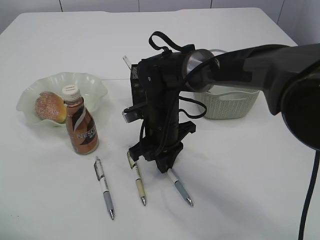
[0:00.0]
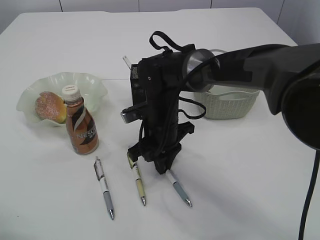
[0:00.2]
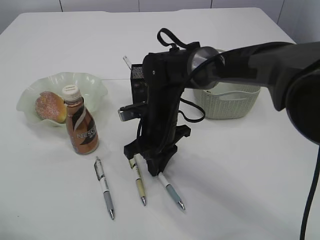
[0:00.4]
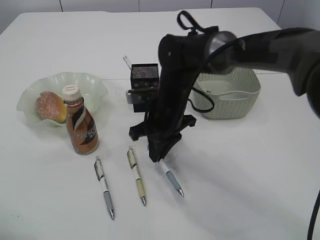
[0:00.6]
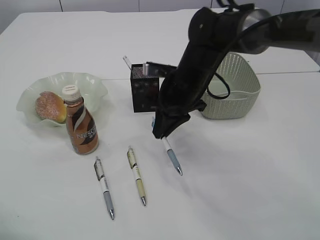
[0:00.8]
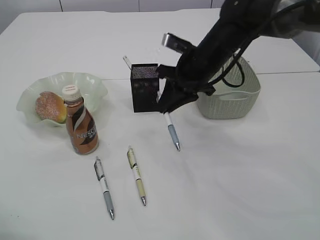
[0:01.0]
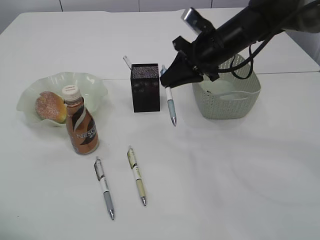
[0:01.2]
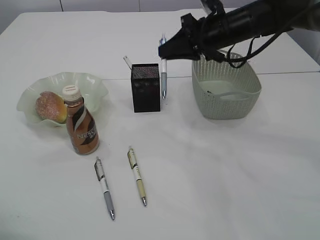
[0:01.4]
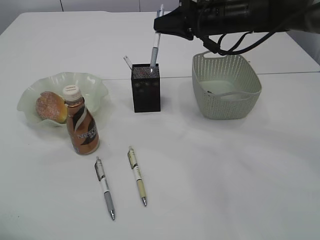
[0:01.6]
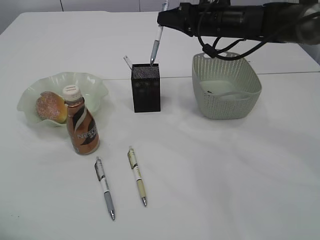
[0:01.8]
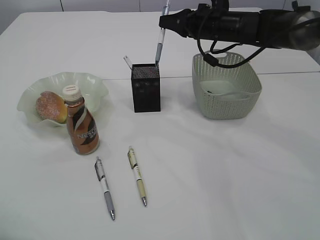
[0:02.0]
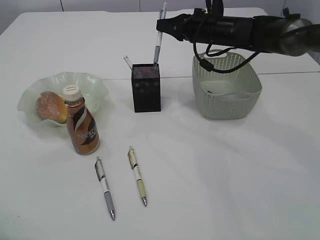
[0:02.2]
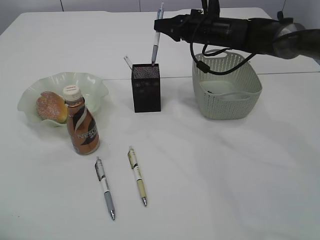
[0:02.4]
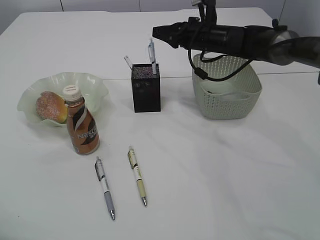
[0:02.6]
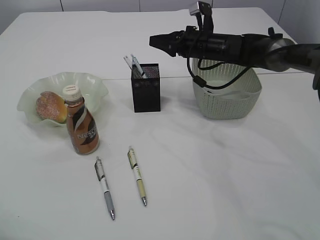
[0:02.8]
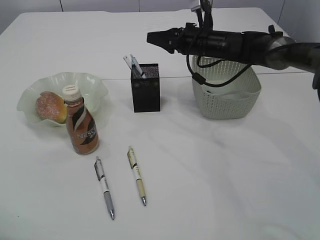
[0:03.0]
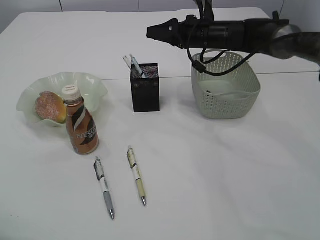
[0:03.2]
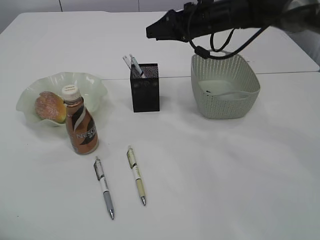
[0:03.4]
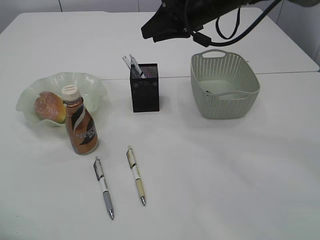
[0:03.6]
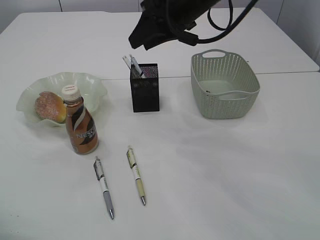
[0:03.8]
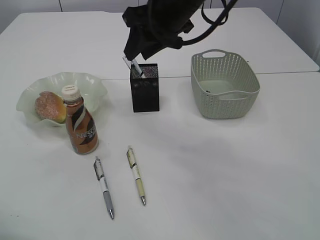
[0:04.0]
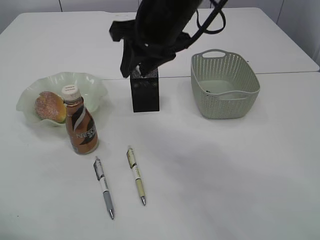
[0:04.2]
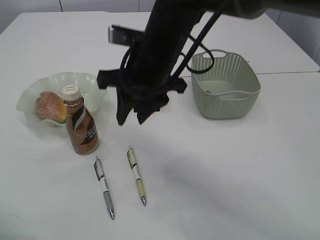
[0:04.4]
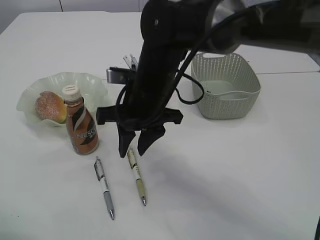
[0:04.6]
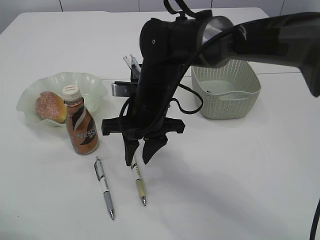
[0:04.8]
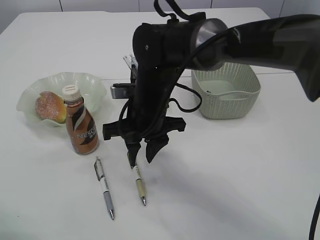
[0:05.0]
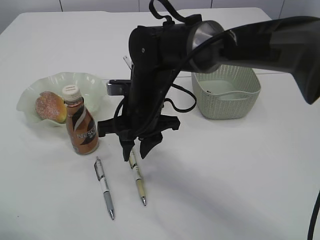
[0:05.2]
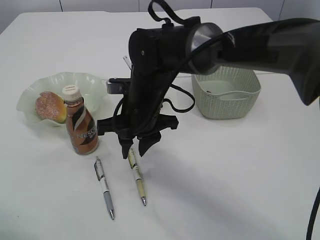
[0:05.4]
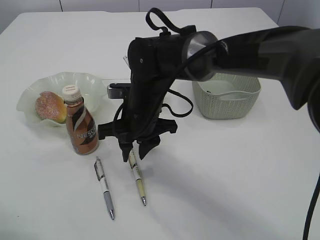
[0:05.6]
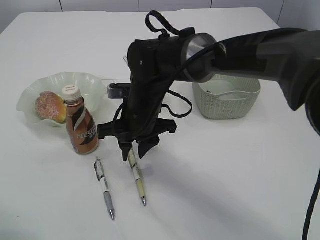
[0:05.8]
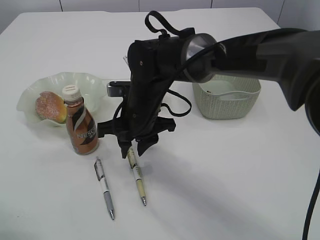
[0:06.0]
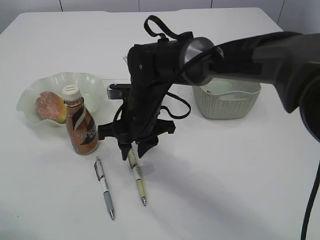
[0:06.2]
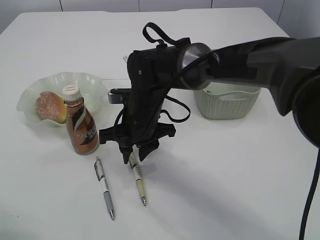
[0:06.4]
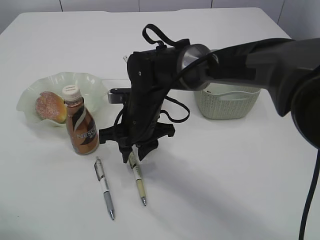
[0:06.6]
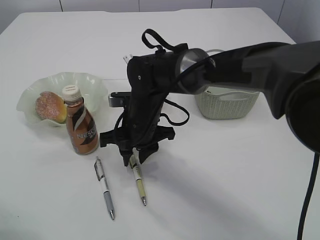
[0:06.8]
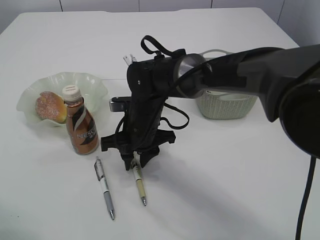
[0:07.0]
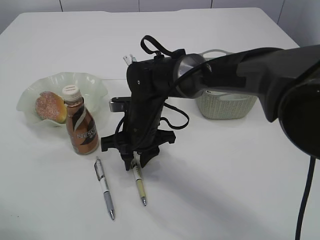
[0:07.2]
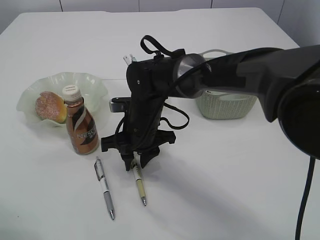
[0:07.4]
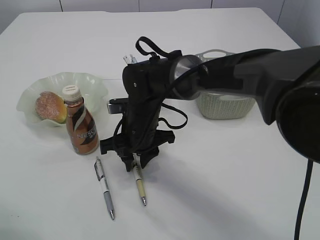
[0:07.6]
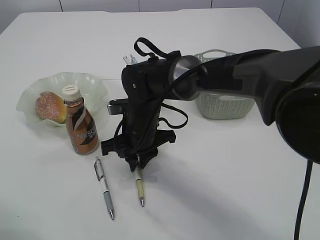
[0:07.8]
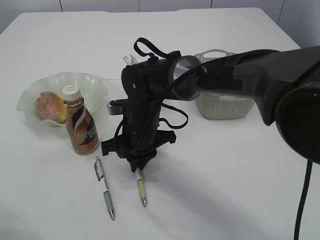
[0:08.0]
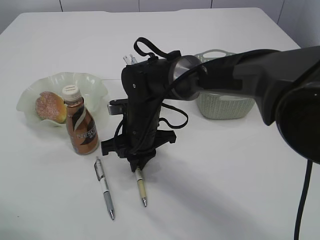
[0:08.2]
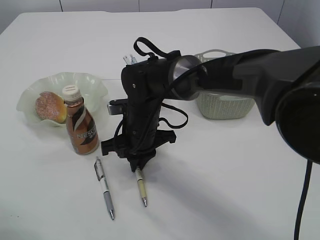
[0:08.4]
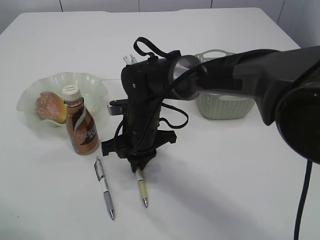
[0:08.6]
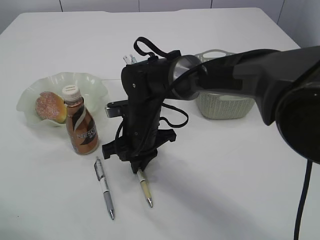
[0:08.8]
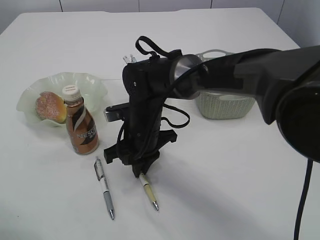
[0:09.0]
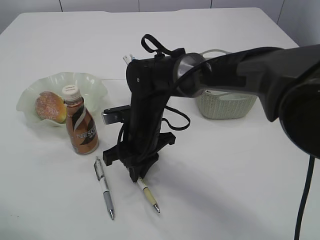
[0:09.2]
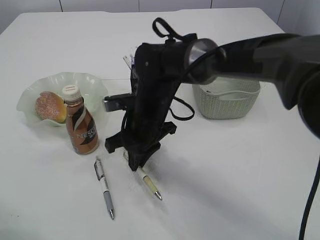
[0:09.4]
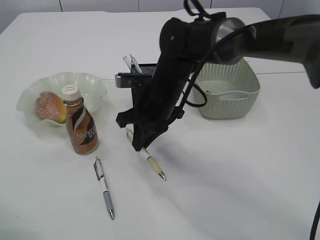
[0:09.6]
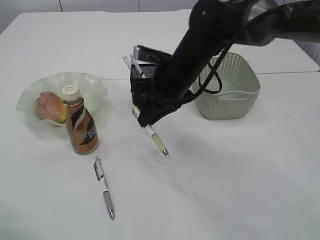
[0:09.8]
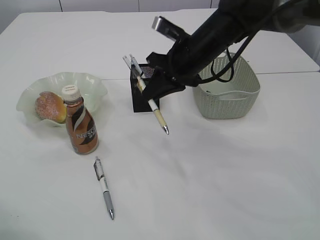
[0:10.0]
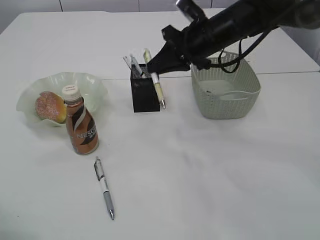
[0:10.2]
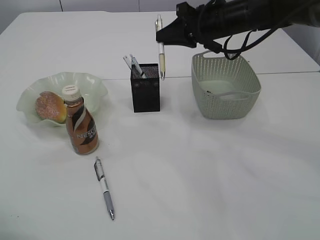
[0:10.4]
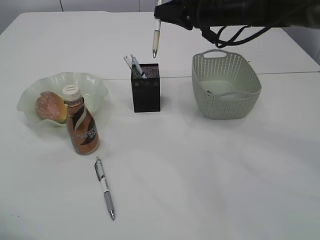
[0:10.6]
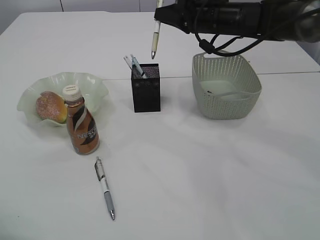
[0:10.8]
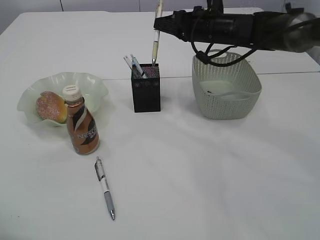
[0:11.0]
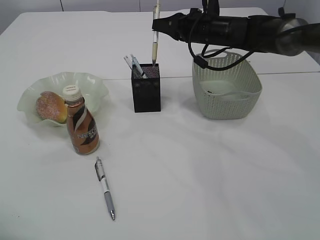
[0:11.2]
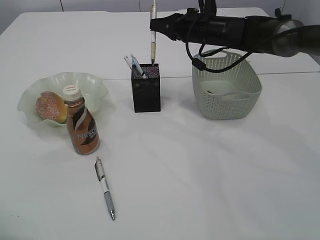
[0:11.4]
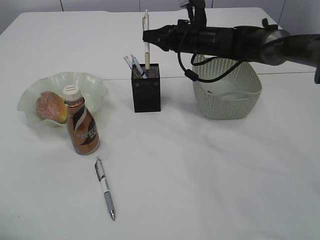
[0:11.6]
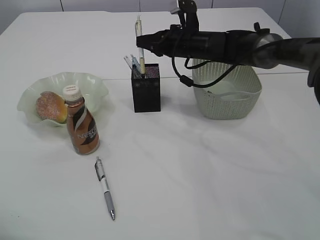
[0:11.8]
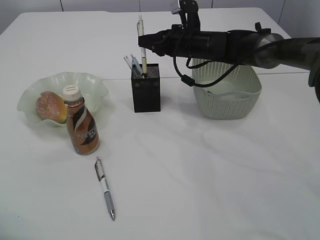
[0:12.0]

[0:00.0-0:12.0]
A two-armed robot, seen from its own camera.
Step, 0:01.0 to 0:03.6: Place the pen into the pen holder.
Step, 0:03.8 to 0:09.4: Pick up the pen with right arm.
0:00.0 to 0:01.6: The right gripper travels upward, to the right and forward by approximately 20 cm.
0:01.6 to 0:03.0: The right gripper goes about 10 cm downward and forward, and opens up.
0:03.0 to 0:04.4: The right gripper goes about 25 cm backward, to the left and upward.
0:04.4 to 0:06.0: The right gripper goes roughly 10 cm downward.
0:06.0 to 0:07.6: The grippers move only a little.
0:07.6 to 0:09.0: The right gripper closes its fingers.
0:09.0 to 0:10.4: The right gripper travels to the right, upward and forward by some 25 cm.
0:10.4 to 0:12.0: The right gripper travels downward and forward by approximately 10 cm.

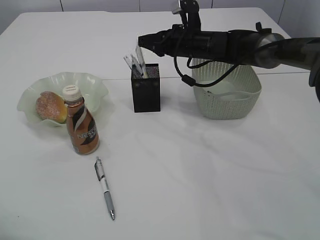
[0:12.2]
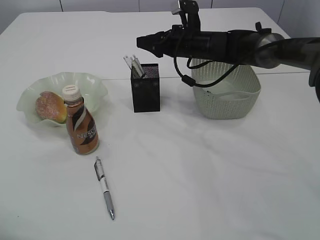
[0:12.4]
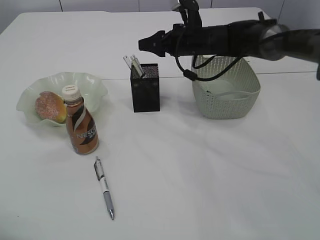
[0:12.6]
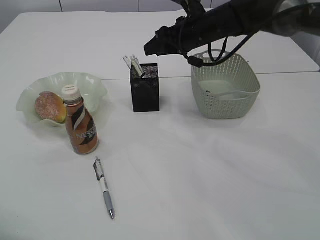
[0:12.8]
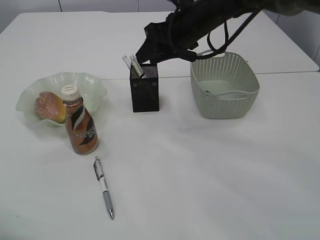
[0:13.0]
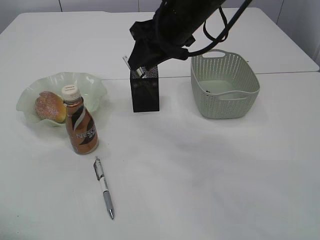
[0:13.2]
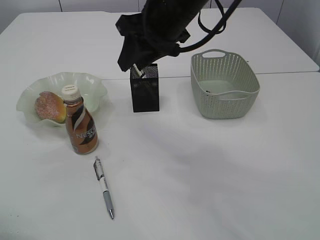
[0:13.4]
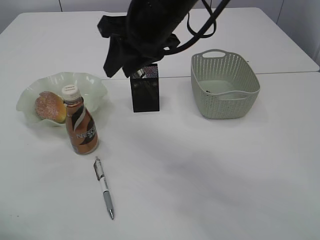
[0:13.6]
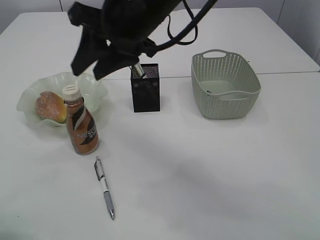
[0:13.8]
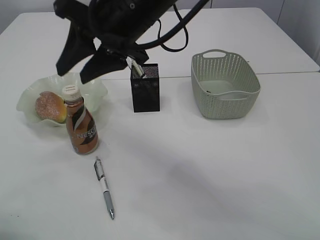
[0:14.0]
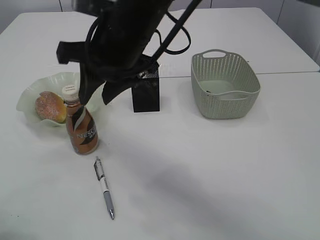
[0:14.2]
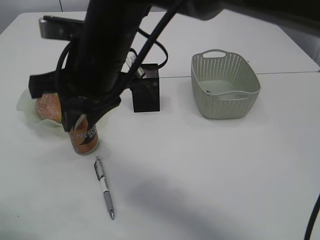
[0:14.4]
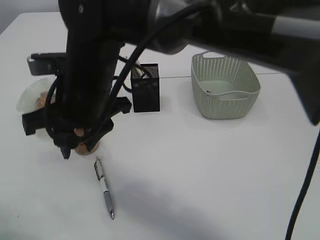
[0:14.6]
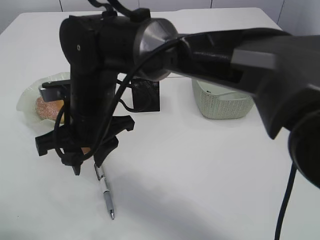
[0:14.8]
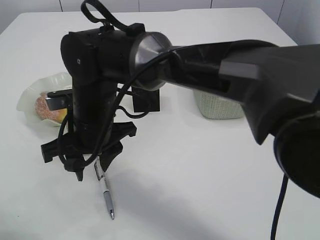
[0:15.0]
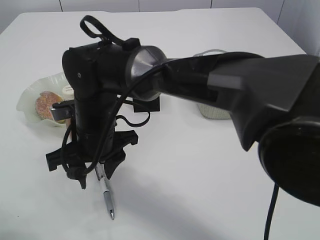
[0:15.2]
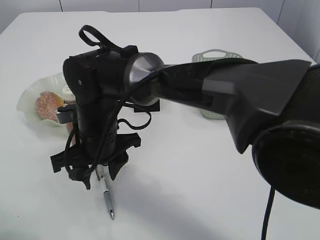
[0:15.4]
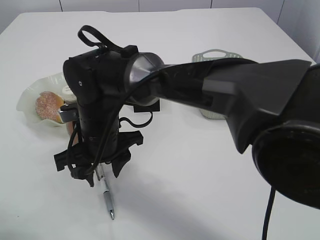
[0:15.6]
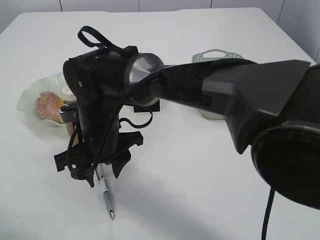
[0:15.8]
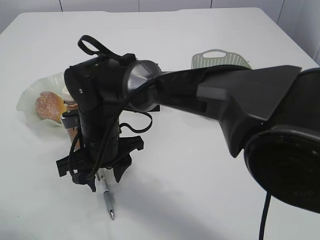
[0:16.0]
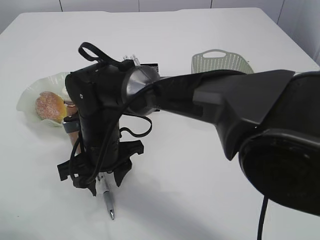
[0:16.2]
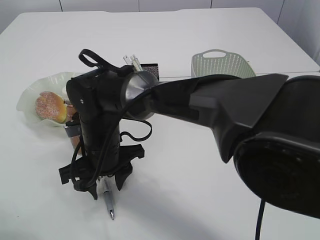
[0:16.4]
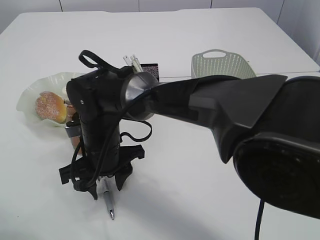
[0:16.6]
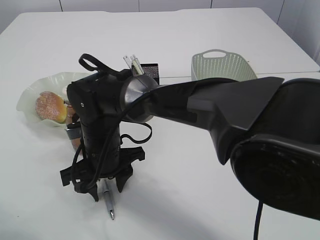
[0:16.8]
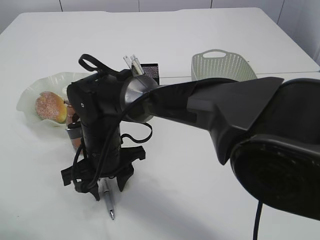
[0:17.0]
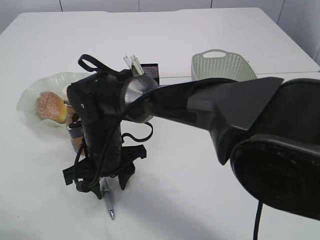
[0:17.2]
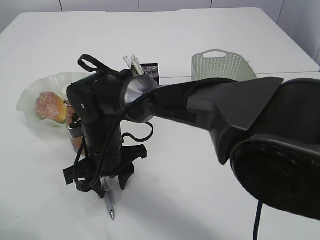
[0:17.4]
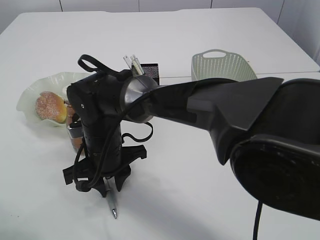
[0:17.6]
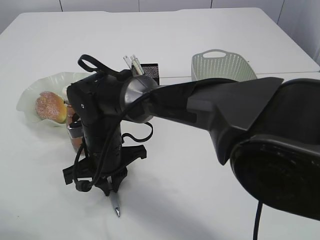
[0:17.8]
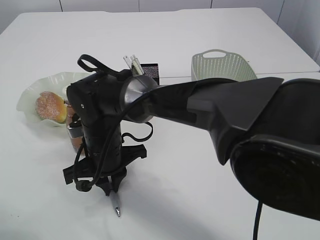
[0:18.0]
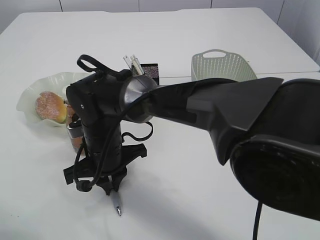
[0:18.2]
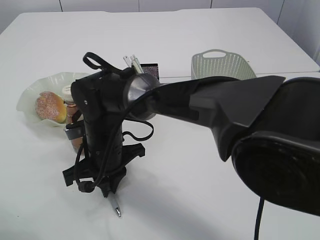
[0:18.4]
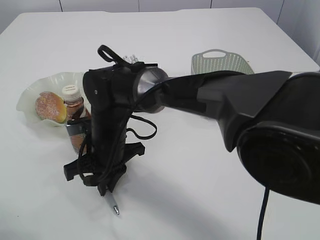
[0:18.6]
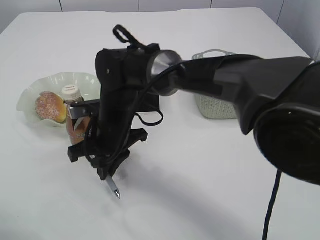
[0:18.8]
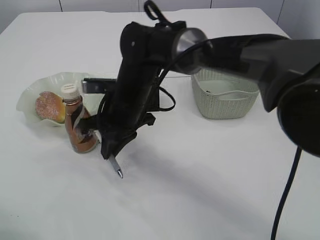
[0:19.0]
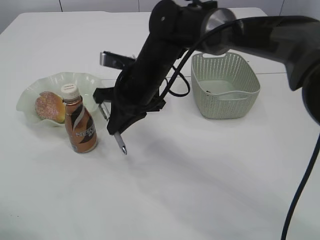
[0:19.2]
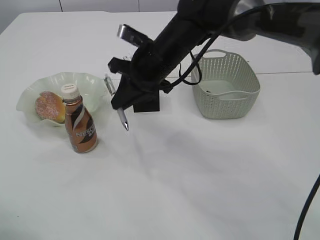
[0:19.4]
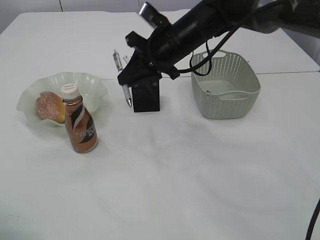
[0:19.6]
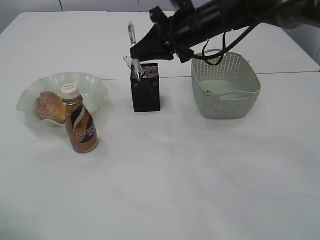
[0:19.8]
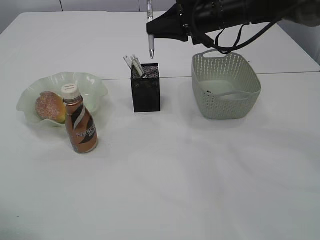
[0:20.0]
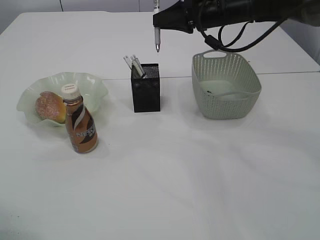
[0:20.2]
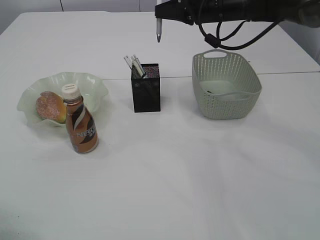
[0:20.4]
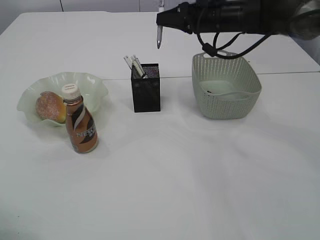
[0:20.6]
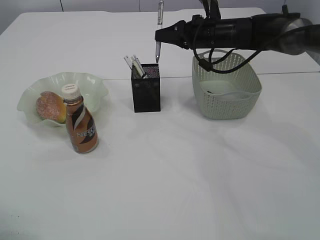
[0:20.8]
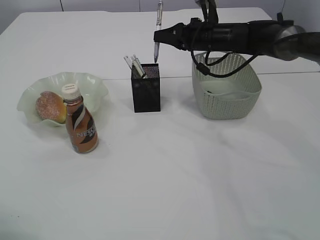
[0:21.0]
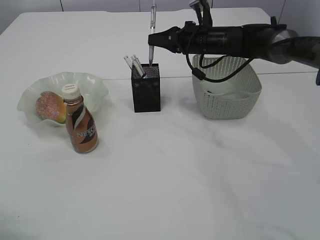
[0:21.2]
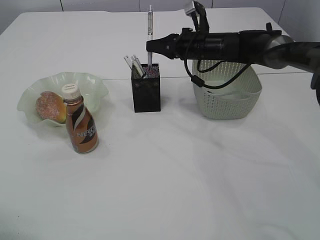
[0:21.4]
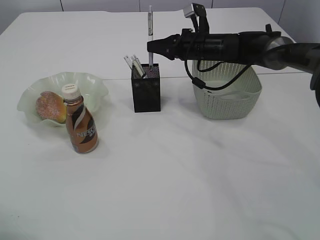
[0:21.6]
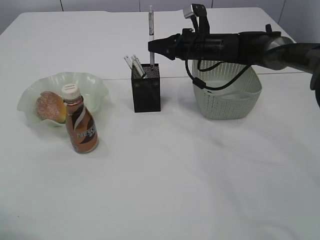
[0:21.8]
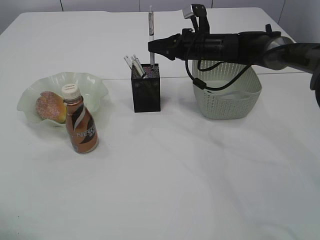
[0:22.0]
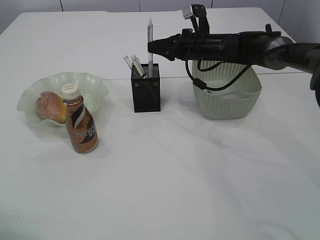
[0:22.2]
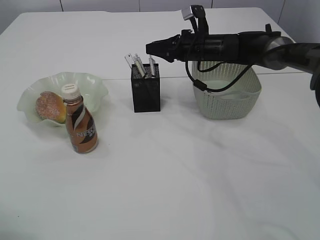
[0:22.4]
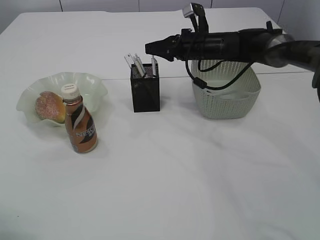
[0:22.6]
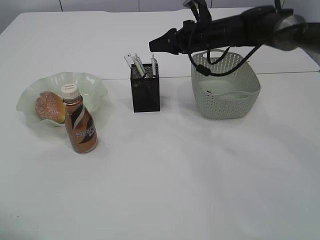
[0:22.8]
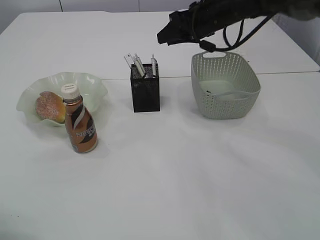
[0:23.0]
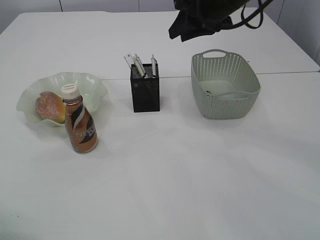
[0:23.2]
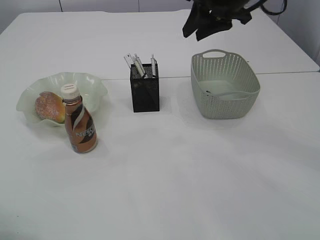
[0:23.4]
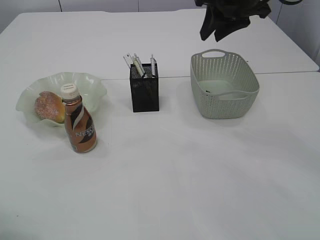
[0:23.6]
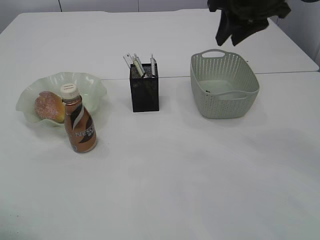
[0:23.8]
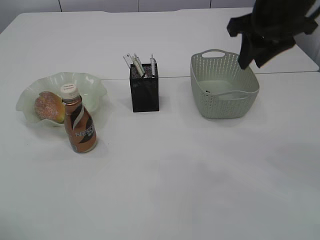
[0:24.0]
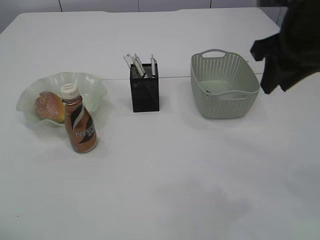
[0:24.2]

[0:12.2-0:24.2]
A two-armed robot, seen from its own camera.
Step, 0:12.8 to 0:18.8: Pick up the pen with right arm.
Step, 0:19.0 to 0:23.4: Place the pen into the pen holder.
0:12.2 to 0:13.8: The right gripper goes some 25 cm backward, upward and to the left.
0:13.8 to 0:15.2: The right gripper travels downward and to the left by approximately 20 cm.
0:16.6 to 0:18.2: The right gripper closes its fingers.
0:18.2 to 0:19.8: The right gripper shifts approximately 25 cm to the right, upward and forward.
0:19.8 to 0:21.2: The right gripper is displaced forward and downward by some 10 cm.
0:21.2 to 0:22.6: The grippers stay close to where they were, moving slightly.
0:22.6 to 0:24.2: The right gripper is displaced backward and upward by roughly 25 cm.
